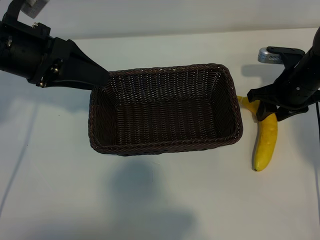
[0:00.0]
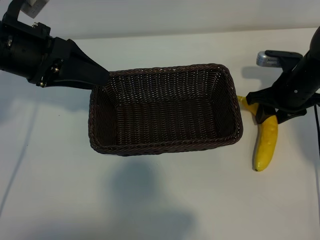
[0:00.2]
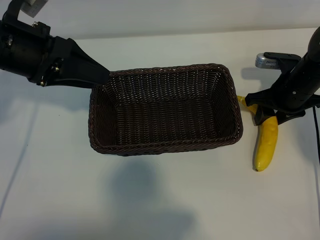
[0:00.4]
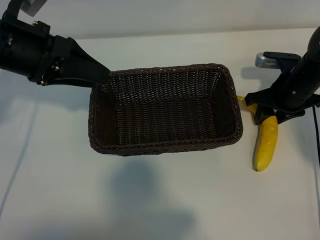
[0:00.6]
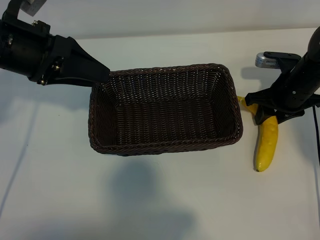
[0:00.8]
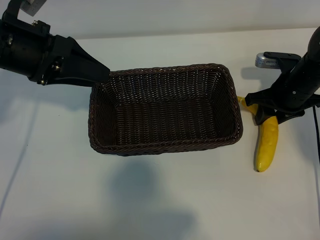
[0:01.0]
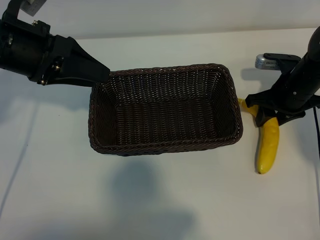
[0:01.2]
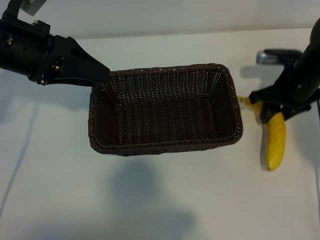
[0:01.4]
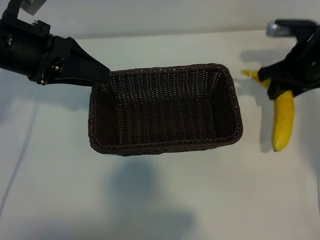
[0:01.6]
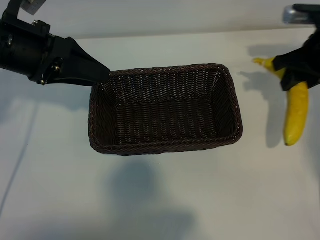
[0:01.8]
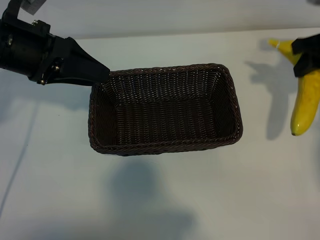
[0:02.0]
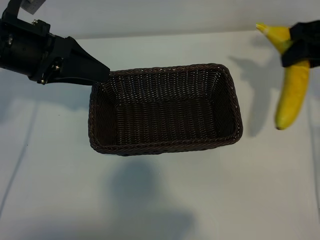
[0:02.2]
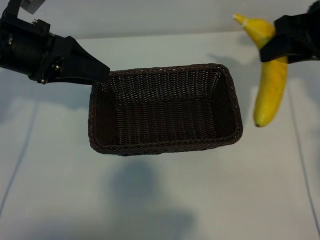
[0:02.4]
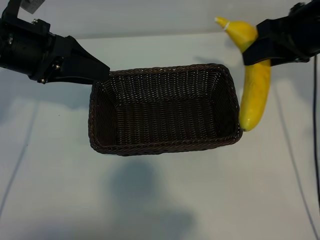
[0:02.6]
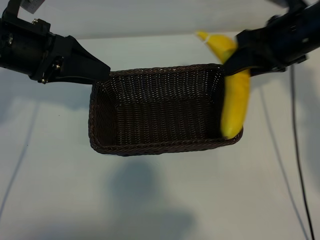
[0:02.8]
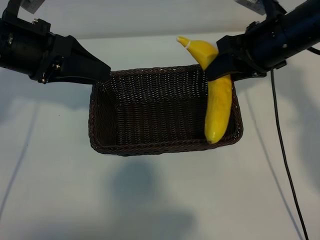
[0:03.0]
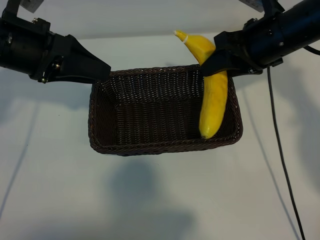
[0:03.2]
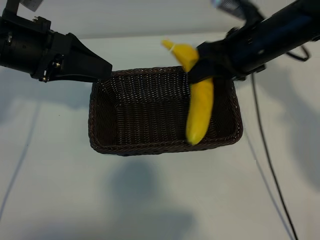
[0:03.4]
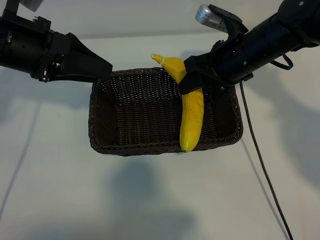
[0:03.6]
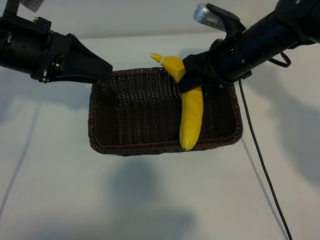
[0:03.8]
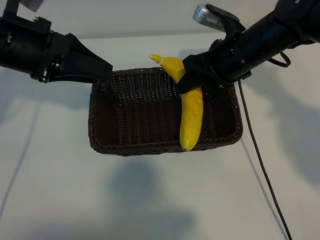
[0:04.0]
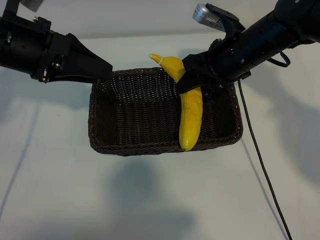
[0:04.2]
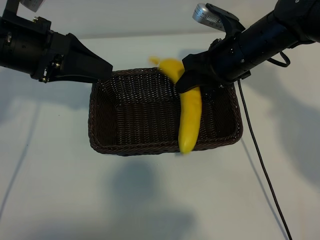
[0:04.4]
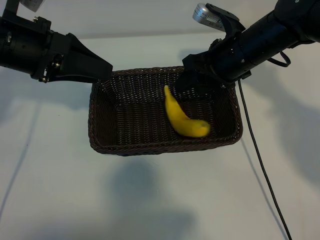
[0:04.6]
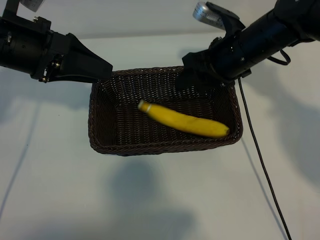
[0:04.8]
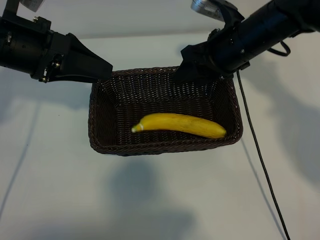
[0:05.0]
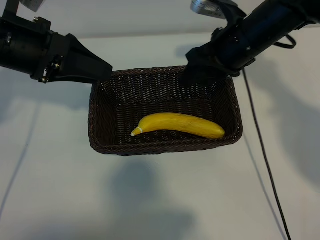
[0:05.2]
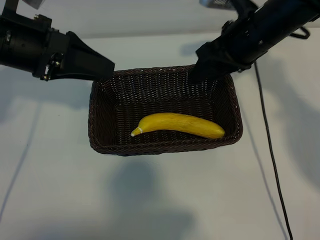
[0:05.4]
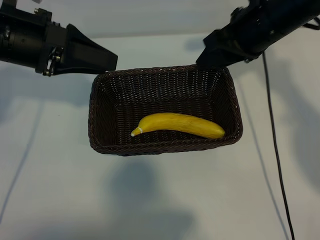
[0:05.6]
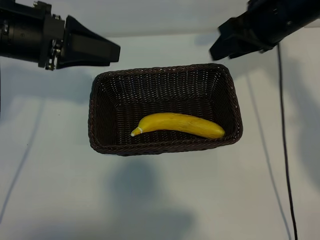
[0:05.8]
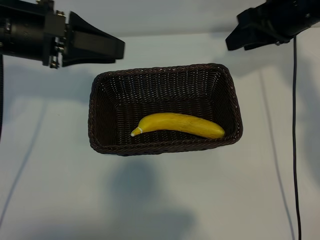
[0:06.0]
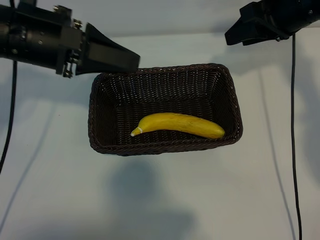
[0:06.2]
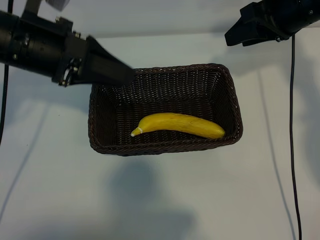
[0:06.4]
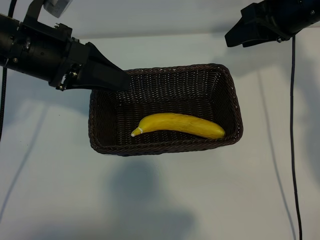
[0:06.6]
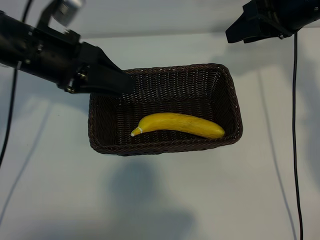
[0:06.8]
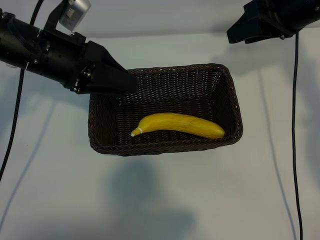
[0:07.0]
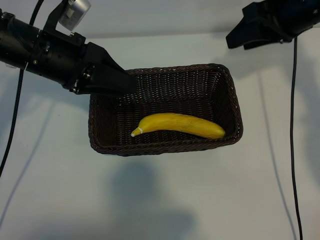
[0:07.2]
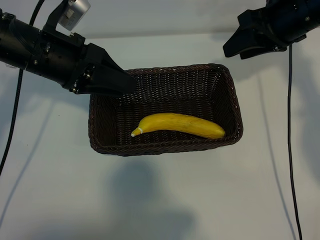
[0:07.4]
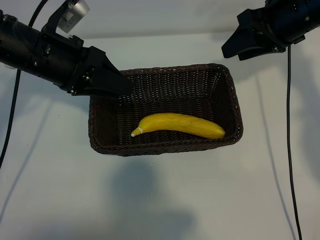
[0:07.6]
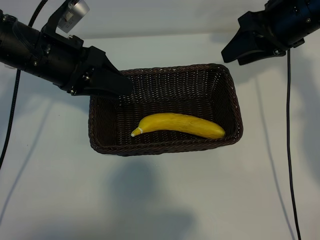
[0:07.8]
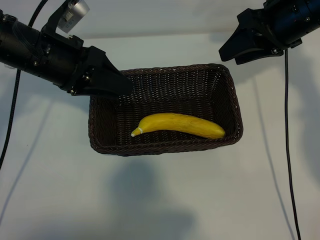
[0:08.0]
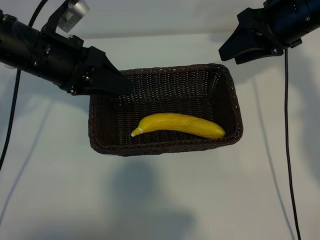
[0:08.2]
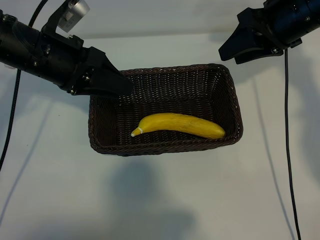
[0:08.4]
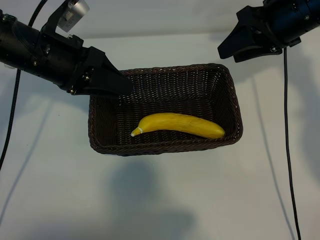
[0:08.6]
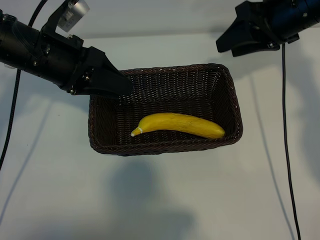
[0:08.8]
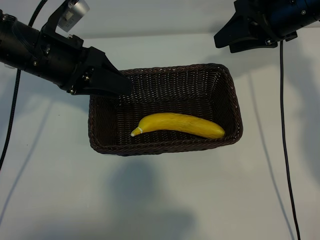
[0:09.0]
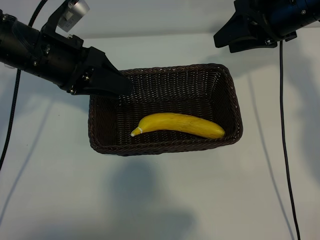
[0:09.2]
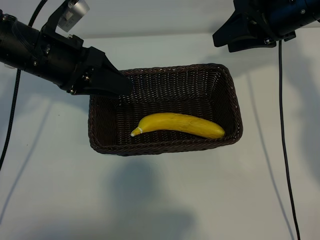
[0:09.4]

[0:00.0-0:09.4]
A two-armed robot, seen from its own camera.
Task of the whole recording: pick up the banana and put it into the basket.
Step, 0:01.4 to 0:04.6: Place the banana in the basket with right gripper.
